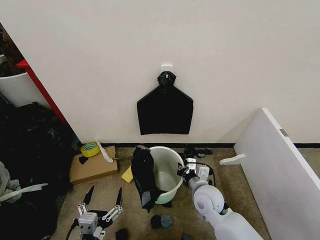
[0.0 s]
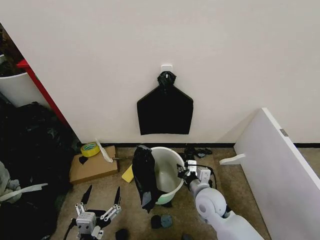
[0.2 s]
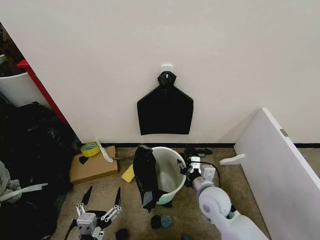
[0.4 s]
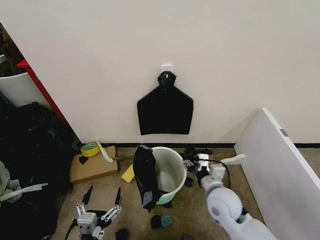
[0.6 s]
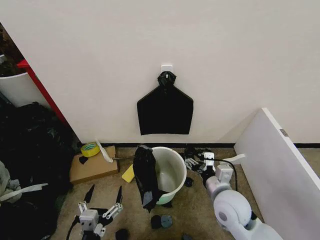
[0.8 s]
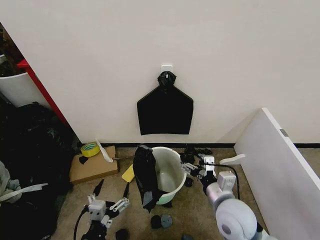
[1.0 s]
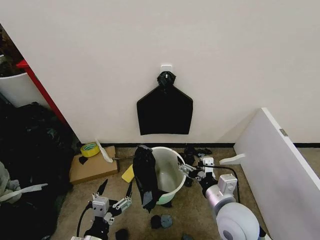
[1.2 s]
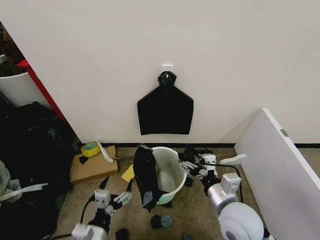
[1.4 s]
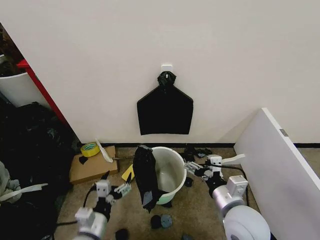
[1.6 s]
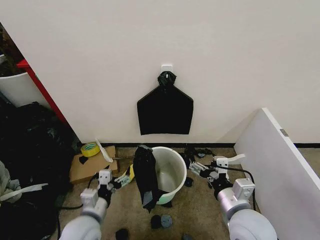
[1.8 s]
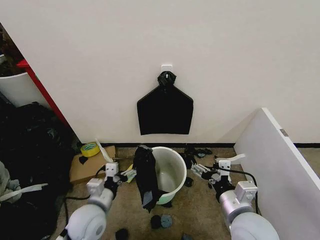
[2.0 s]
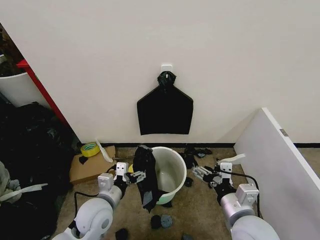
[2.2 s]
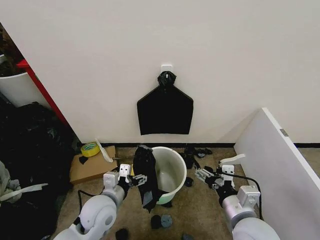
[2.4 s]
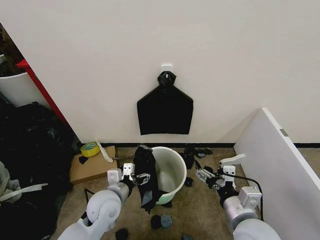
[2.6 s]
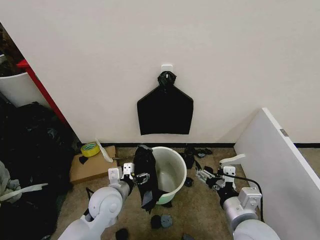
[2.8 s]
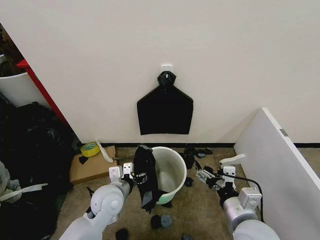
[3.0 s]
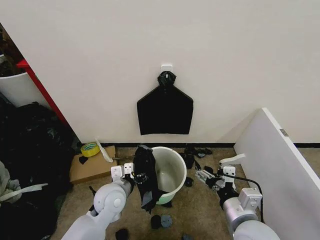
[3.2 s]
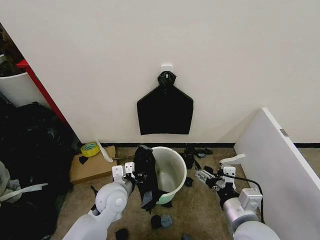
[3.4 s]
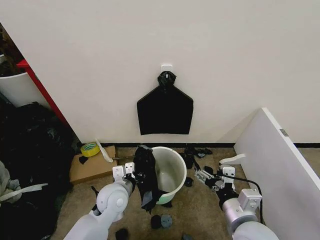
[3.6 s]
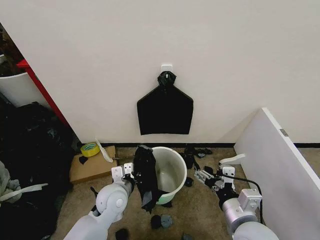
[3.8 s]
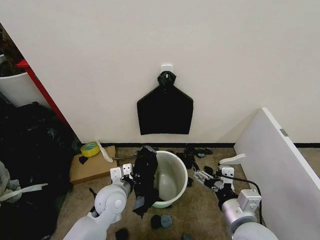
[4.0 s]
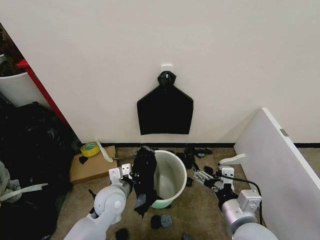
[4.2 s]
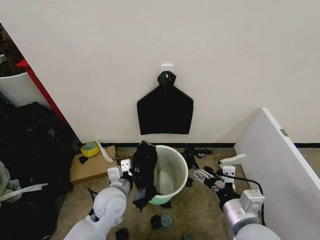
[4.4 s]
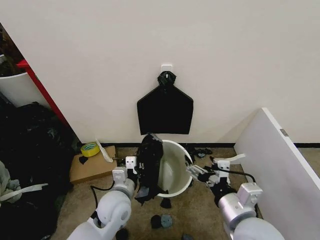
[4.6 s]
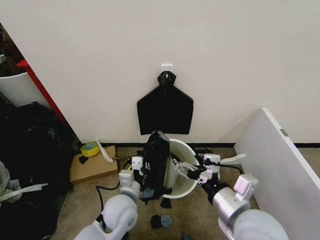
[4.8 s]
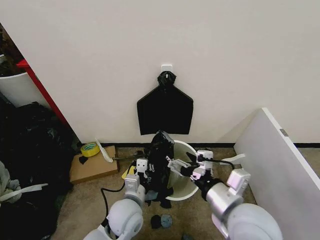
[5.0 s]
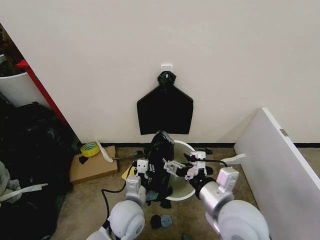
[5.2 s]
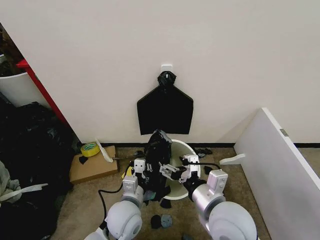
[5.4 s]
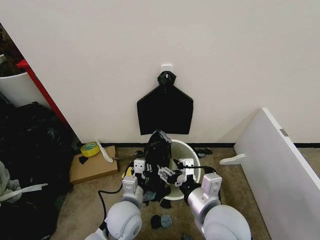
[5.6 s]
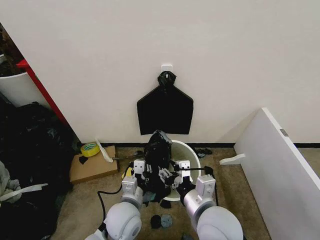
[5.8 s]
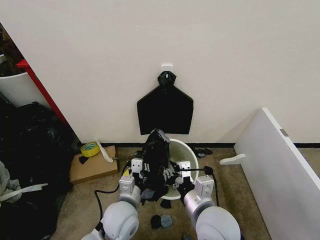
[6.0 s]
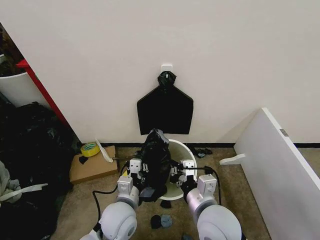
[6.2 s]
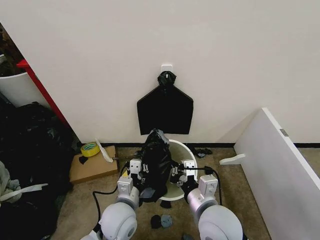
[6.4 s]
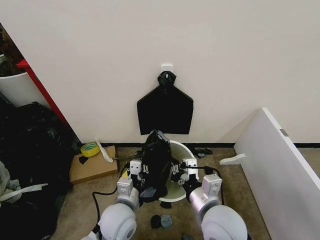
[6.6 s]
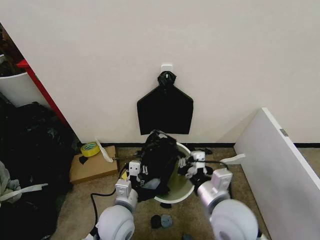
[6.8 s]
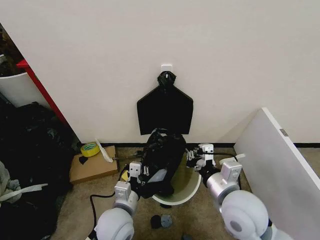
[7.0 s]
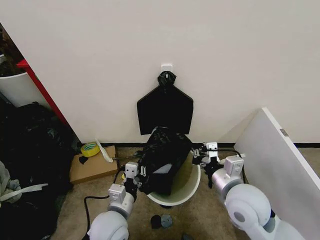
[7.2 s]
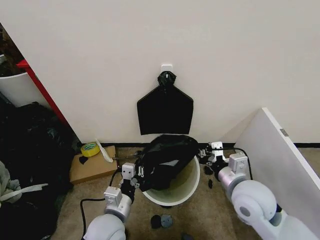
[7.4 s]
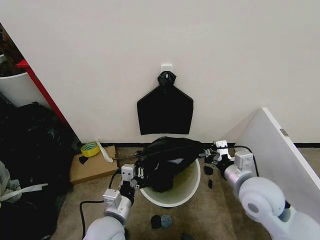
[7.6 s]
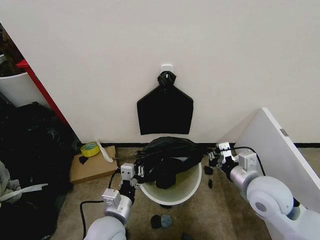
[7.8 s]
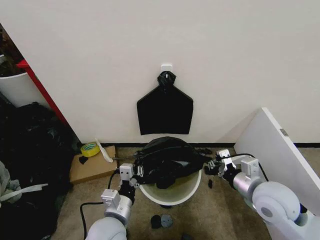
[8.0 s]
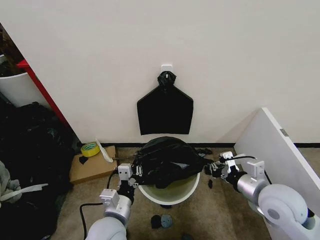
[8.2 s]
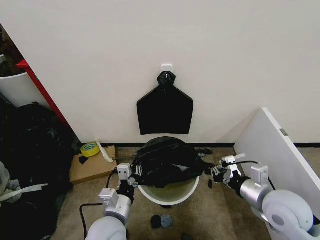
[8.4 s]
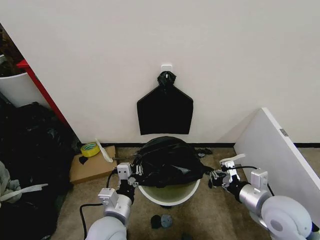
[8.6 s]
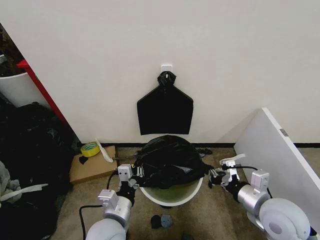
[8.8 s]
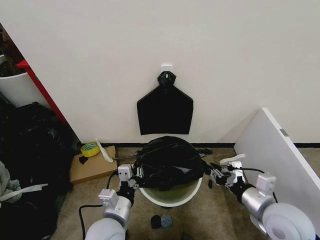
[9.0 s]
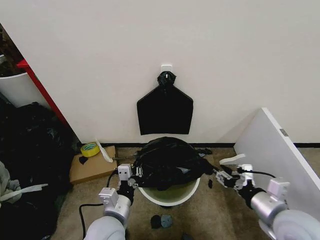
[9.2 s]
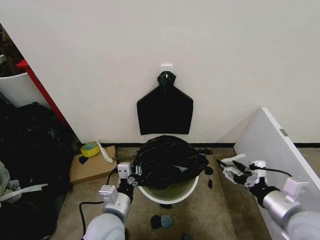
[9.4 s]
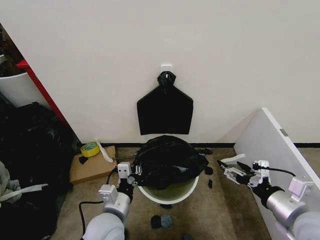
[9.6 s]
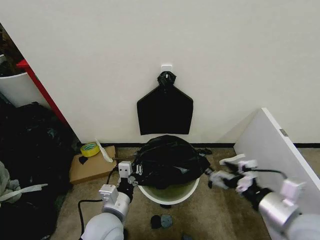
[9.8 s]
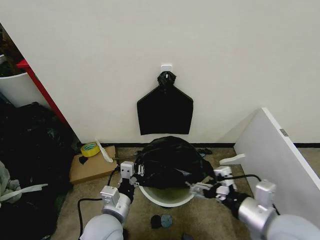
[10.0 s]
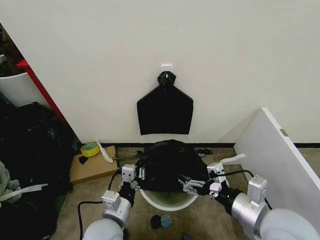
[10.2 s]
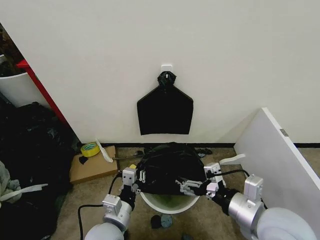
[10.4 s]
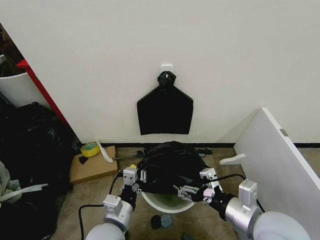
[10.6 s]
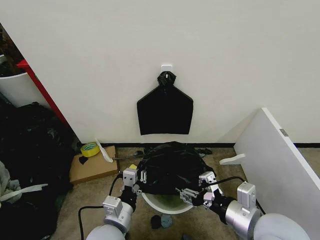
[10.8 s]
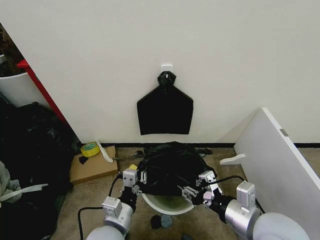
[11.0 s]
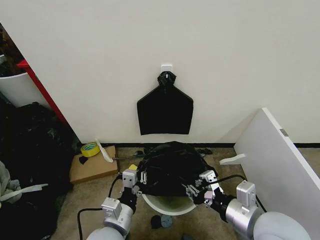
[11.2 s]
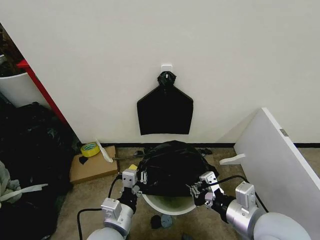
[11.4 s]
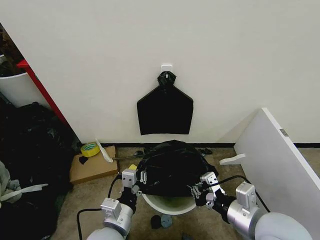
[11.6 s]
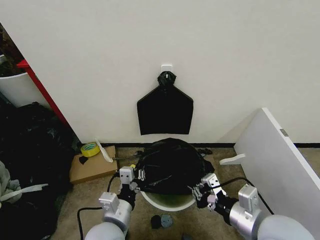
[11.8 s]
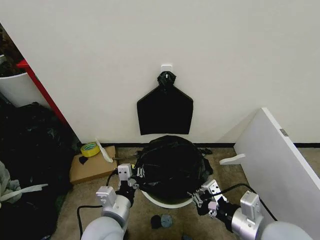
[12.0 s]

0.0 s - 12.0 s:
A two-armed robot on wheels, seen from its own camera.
Task of the whole recording: Place the garbage bag over the trash bin.
0.0 s - 1.6 s: The left gripper goes roughly 10 cm forward, while the right gripper goes roughly 15 cm upward and backward, and opens.
1.6 s - 3.0 s: The left gripper shifts approximately 15 cm forward.
3.0 s - 4.4 s: The left gripper closes its fingers.
4.4 s - 6.0 s: The right gripper heads to the left, covering some 10 cm, and closes its fingers. Meanwhile the left gripper ends up roughly 5 cm from where it was.
6.0 s - 7.6 s: The left gripper moves approximately 5 cm; the right gripper travels to the right and forward by approximately 15 cm.
7.6 s - 9.0 s: The right gripper heads backward, covering some 5 cm.
9.0 s - 10.4 s: The right gripper is displaced upward by roughly 5 cm, and opens.
10.4 s - 12.0 s: The right gripper closes its fingers.

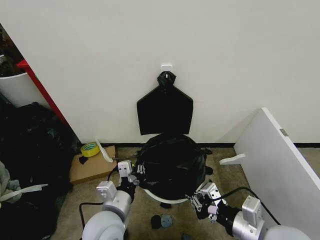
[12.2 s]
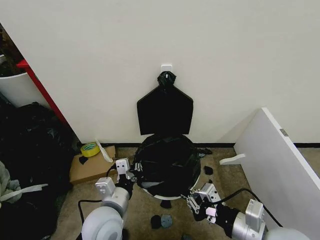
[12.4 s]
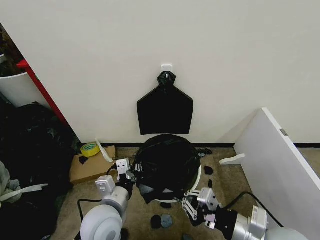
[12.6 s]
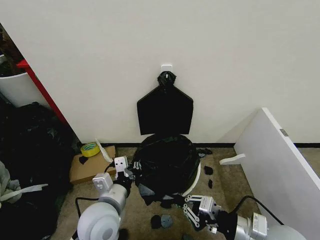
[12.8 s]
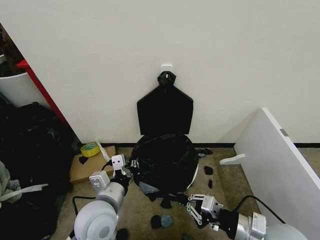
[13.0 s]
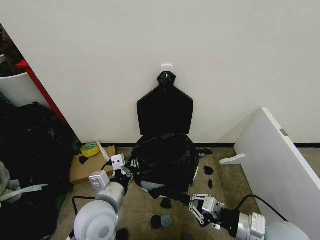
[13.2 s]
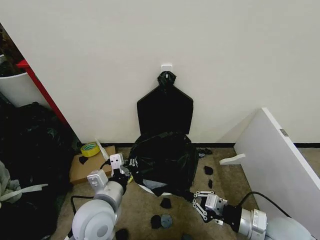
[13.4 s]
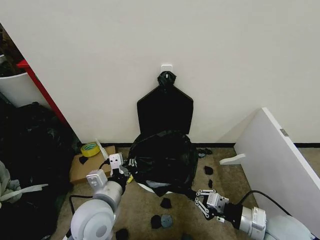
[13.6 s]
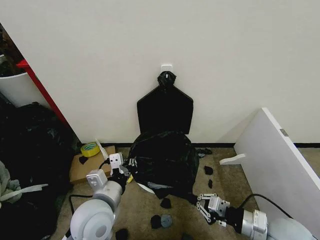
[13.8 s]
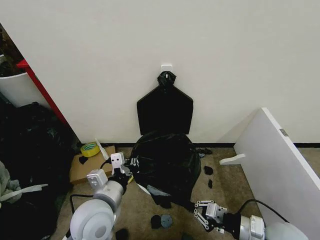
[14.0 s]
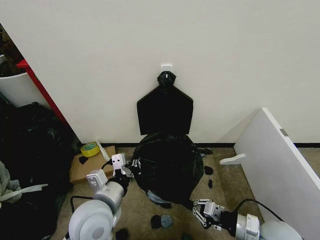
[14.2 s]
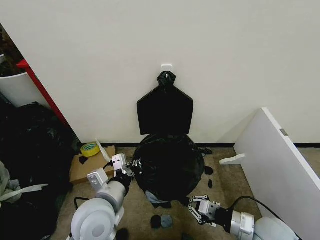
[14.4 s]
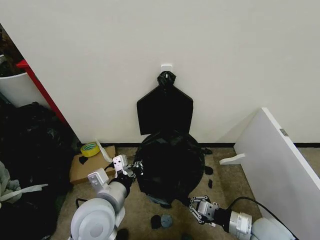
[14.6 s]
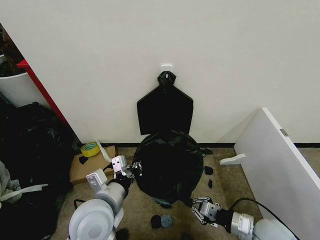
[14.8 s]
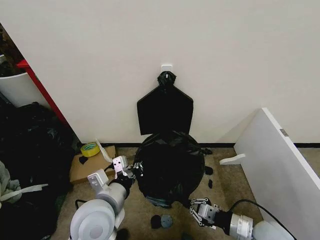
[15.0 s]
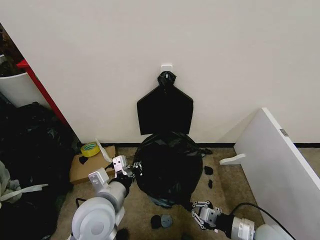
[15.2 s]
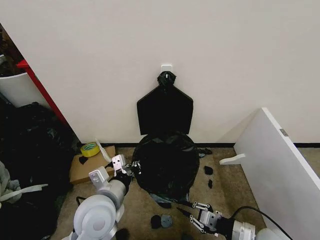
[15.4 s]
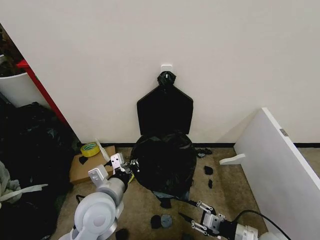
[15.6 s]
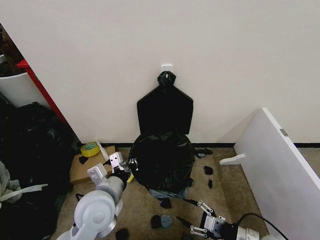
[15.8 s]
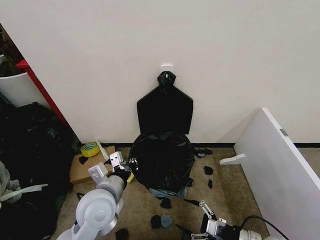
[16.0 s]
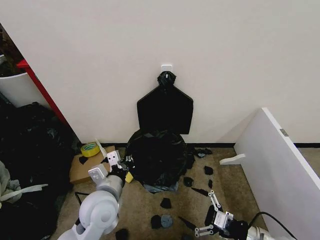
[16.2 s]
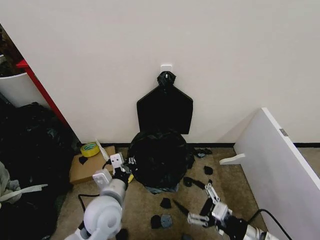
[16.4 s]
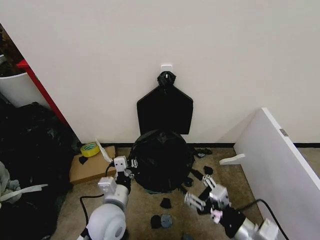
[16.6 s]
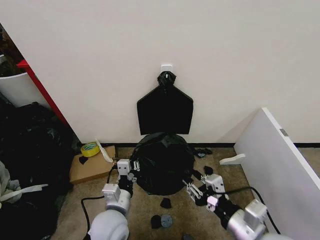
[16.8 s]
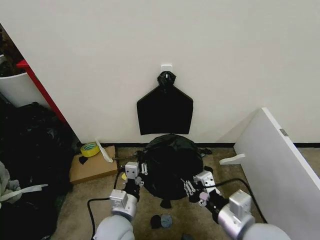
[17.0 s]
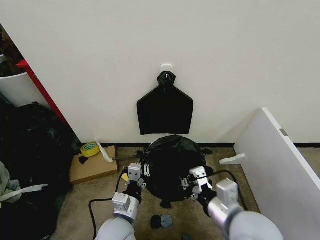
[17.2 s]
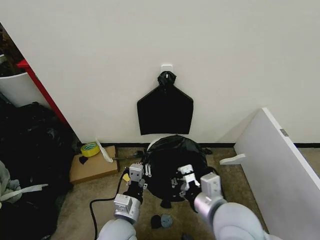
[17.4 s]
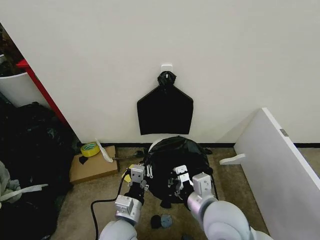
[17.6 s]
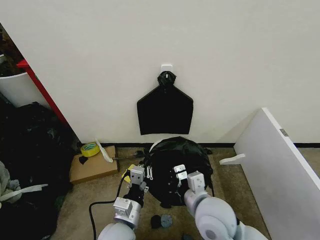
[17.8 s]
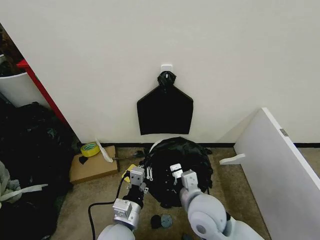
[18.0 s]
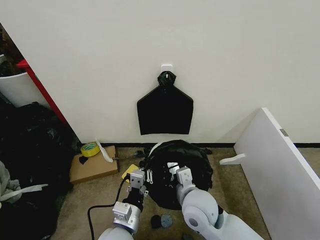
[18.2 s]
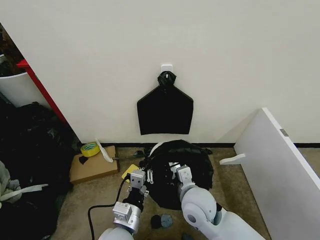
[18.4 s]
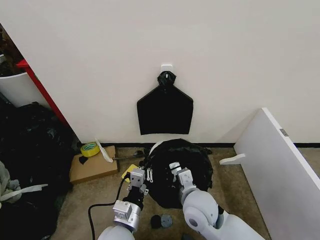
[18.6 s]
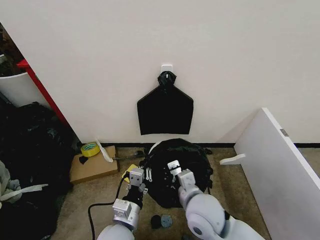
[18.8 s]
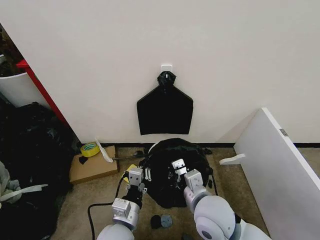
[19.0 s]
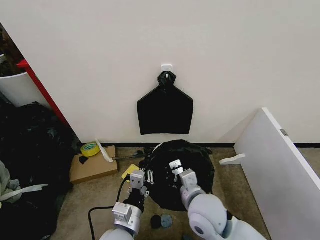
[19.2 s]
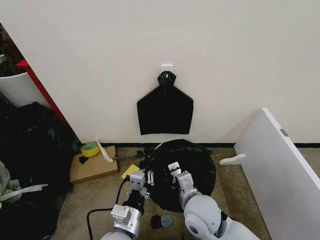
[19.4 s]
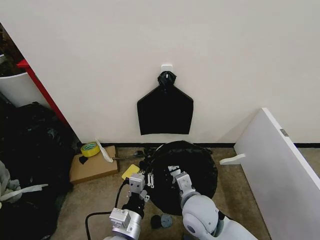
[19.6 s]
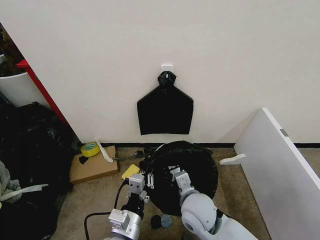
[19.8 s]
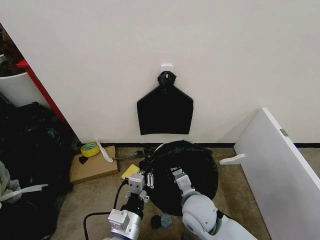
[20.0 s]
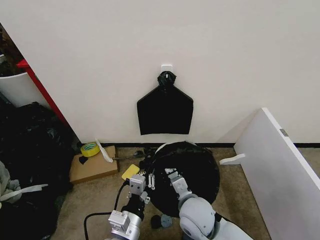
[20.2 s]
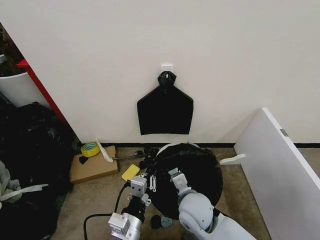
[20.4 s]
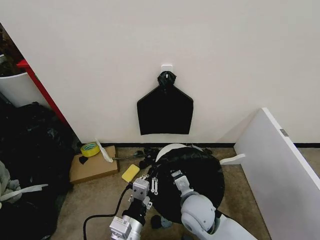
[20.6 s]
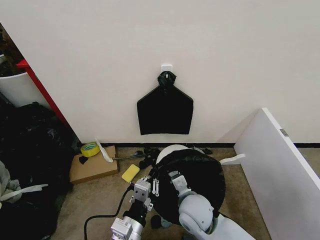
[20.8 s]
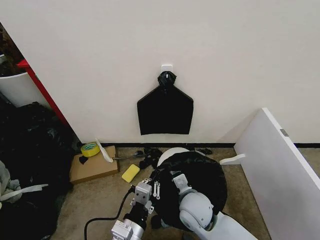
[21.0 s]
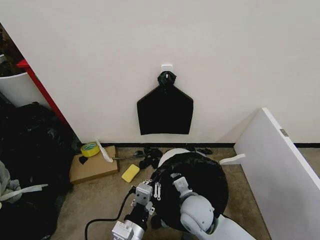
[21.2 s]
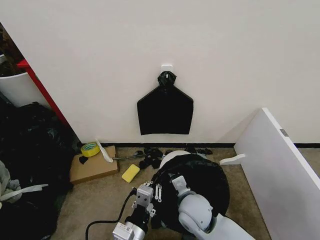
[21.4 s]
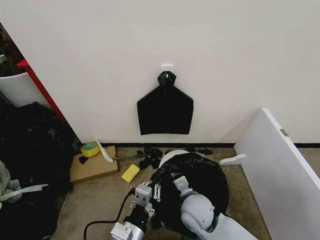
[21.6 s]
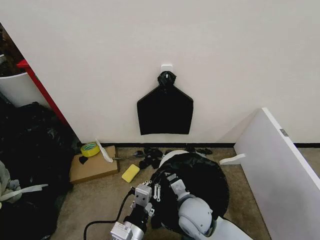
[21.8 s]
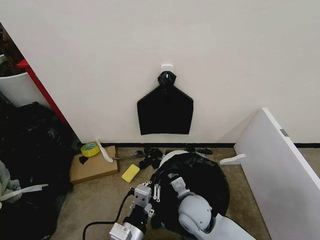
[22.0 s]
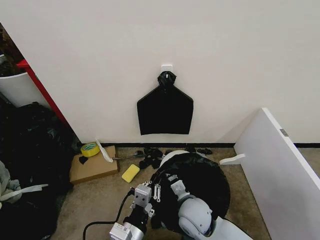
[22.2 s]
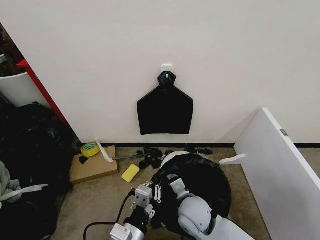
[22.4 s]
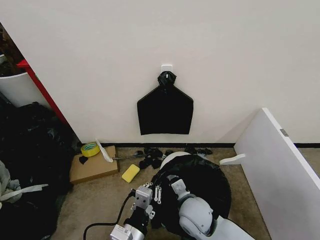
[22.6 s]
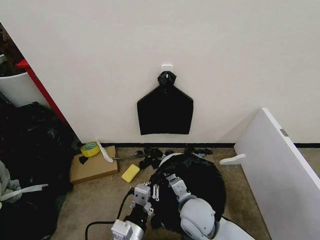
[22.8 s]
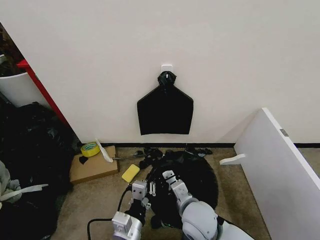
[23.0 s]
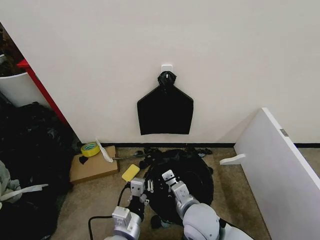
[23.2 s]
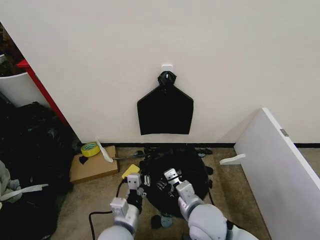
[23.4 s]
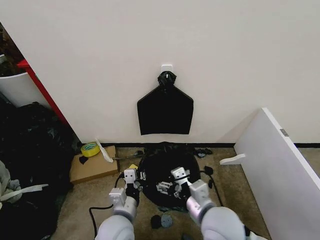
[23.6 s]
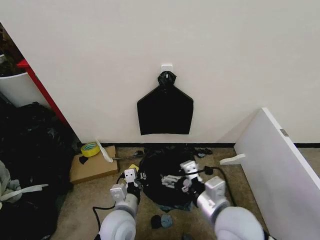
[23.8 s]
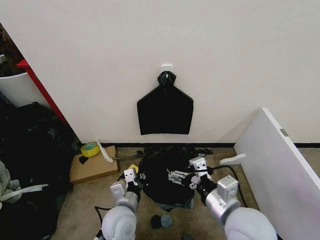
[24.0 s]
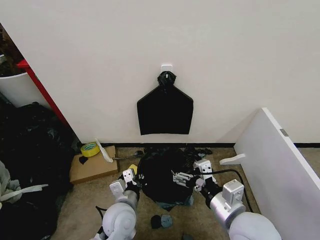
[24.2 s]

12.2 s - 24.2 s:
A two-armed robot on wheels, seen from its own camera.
Task of the whole recording: Place the garbage bag over the trash bin.
12.2 s - 13.8 s: The right gripper goes roughly 10 cm downward and to the right.
13.8 s - 15.2 s: The right gripper changes place by approximately 5 cm.
15.2 s - 16.6 s: The right gripper is displaced upward, to the left and backward by some 10 cm, and opens. The left gripper is displaced downward by roughly 10 cm.
16.6 s - 18.2 s: The right gripper travels to the left and forward by approximately 20 cm, and closes its fingers. The left gripper travels backward by roughly 5 cm.
18.2 s - 21.2 s: The grippers stay close to where they were, moving slightly.
21.2 s - 22.6 s: Neither gripper changes place.
22.6 s - 24.2 s: The left gripper shifts approximately 15 cm forward, while the right gripper moves upward, to the right and backward, roughly 15 cm, and opens up.
